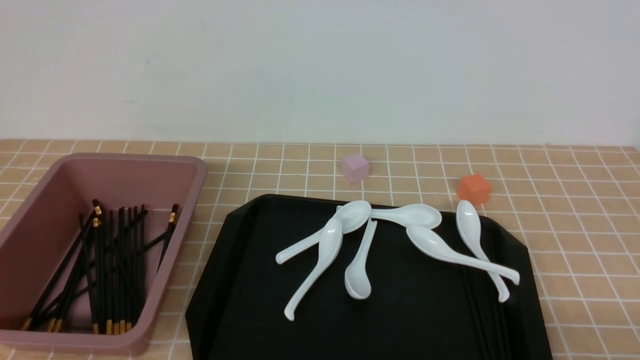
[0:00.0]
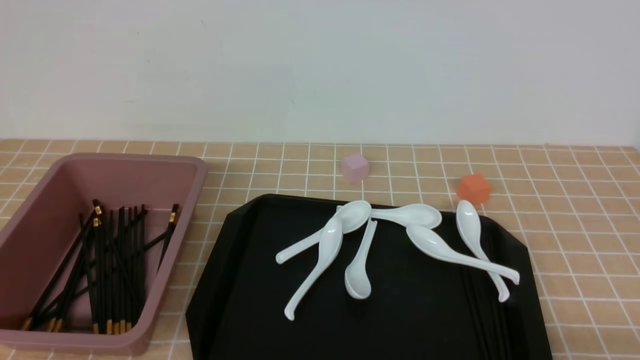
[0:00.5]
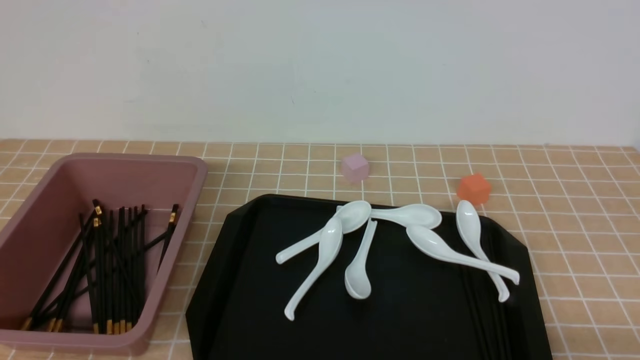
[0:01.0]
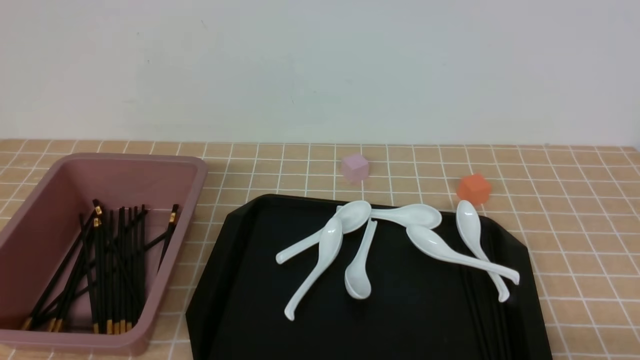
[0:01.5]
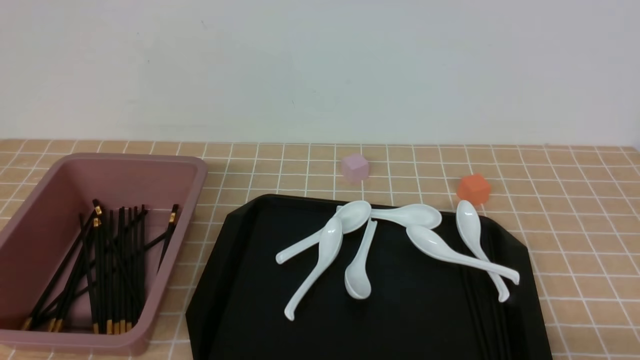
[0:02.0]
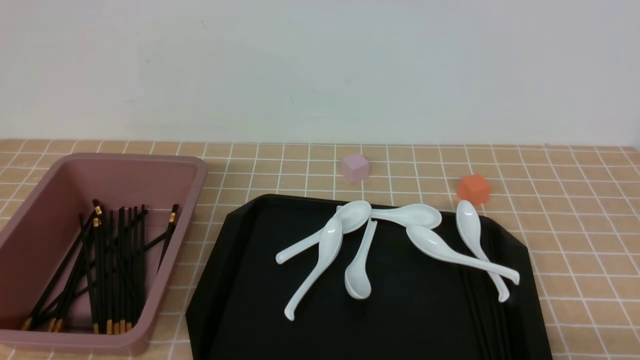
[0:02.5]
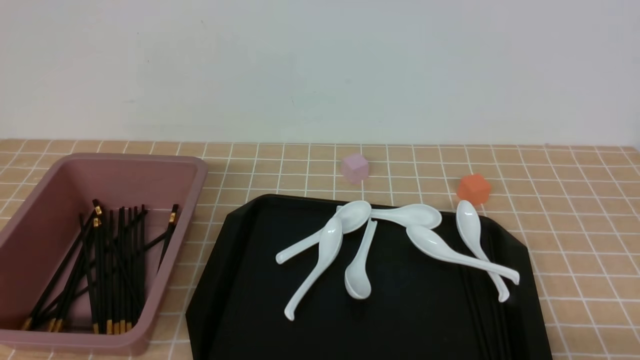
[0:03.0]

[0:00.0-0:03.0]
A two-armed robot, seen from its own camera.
0:01.5 to 0:03.0: The two grippers keep their place.
